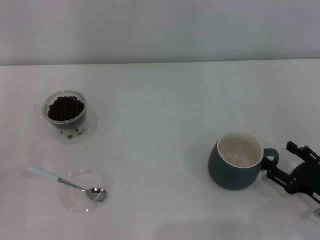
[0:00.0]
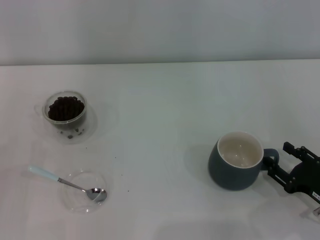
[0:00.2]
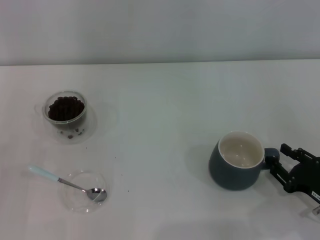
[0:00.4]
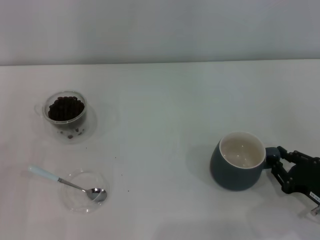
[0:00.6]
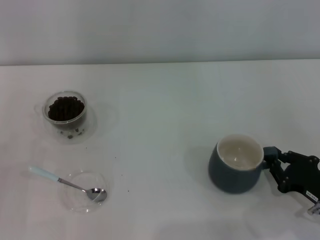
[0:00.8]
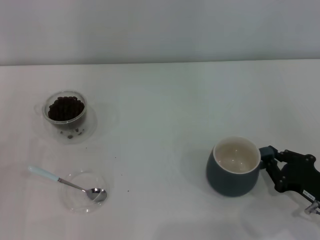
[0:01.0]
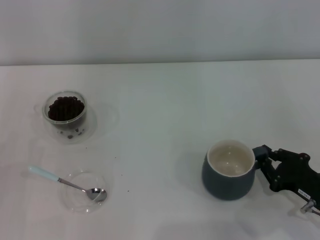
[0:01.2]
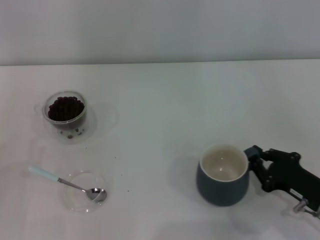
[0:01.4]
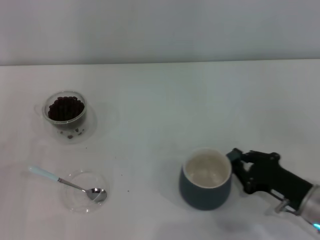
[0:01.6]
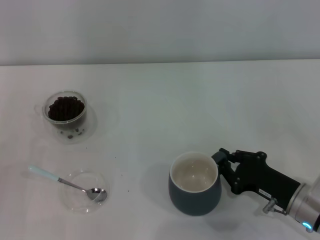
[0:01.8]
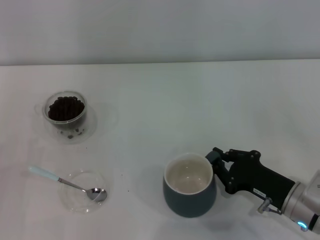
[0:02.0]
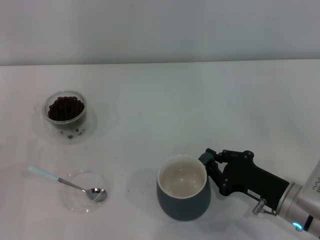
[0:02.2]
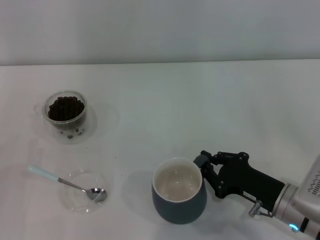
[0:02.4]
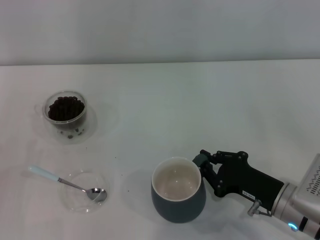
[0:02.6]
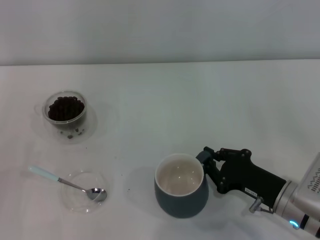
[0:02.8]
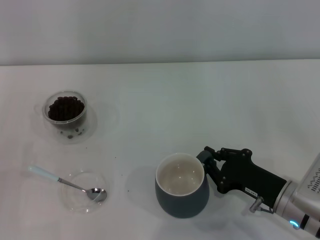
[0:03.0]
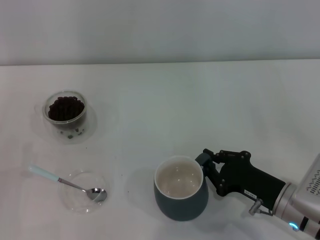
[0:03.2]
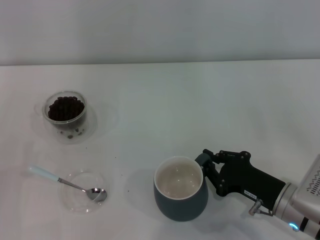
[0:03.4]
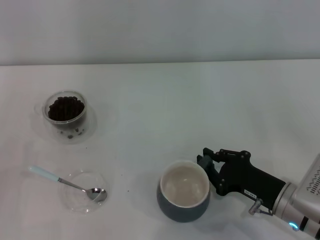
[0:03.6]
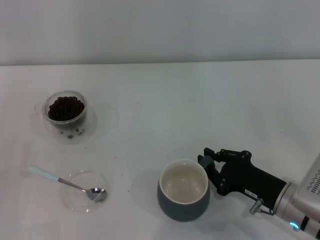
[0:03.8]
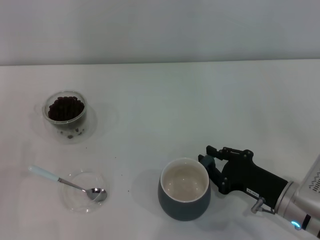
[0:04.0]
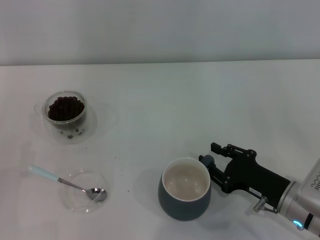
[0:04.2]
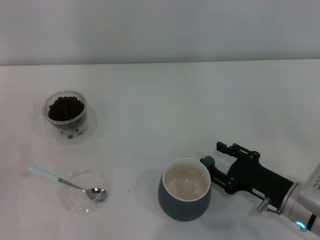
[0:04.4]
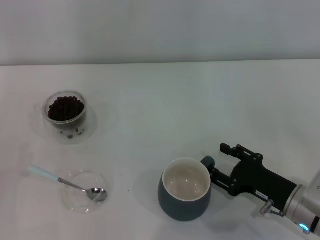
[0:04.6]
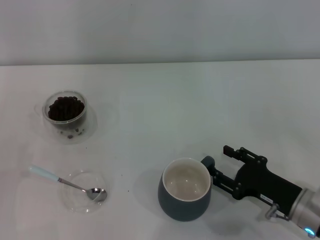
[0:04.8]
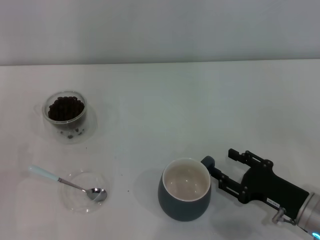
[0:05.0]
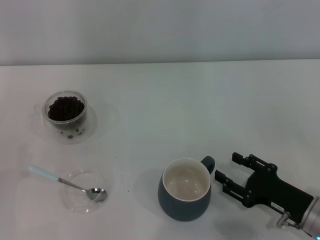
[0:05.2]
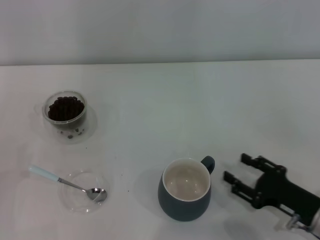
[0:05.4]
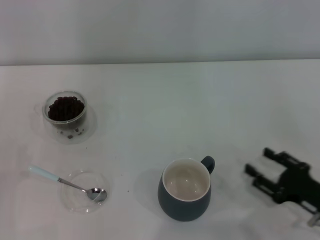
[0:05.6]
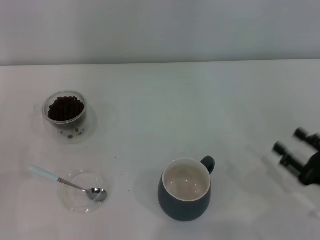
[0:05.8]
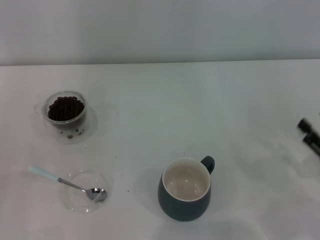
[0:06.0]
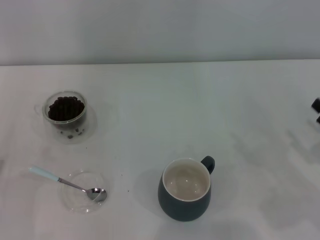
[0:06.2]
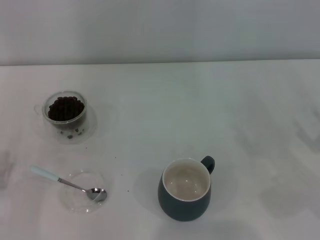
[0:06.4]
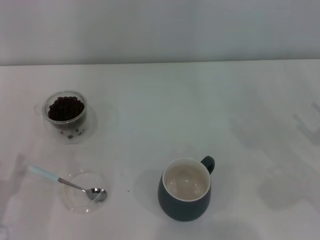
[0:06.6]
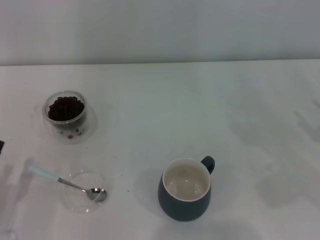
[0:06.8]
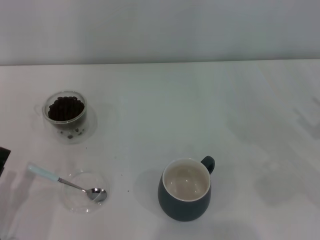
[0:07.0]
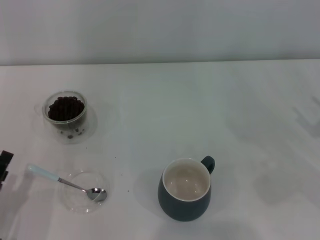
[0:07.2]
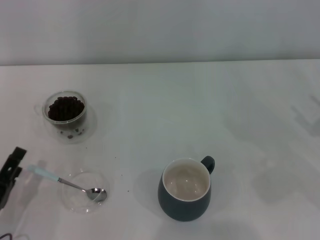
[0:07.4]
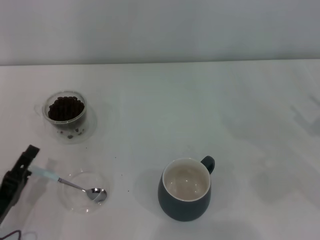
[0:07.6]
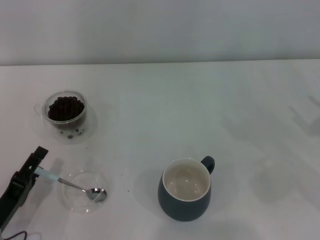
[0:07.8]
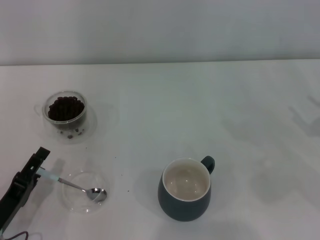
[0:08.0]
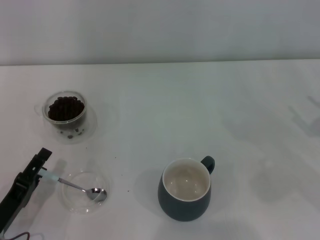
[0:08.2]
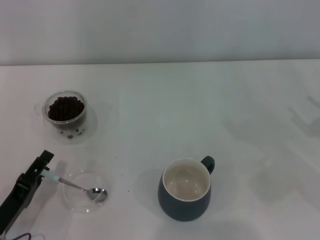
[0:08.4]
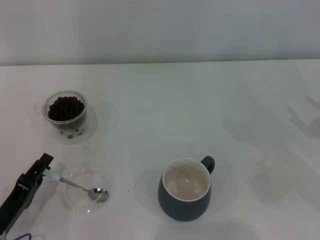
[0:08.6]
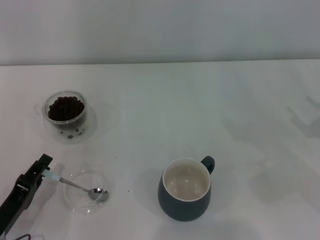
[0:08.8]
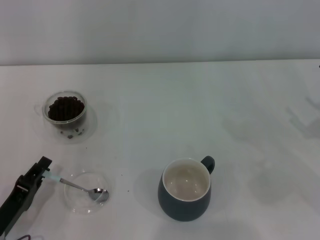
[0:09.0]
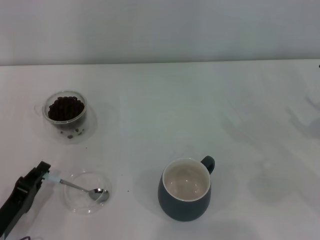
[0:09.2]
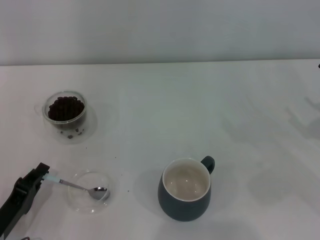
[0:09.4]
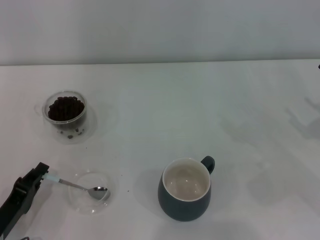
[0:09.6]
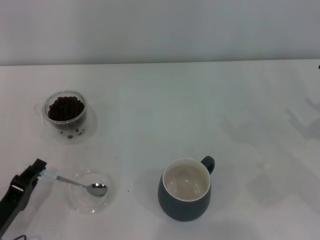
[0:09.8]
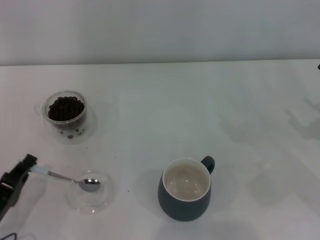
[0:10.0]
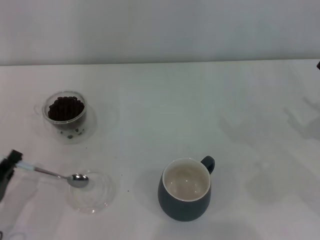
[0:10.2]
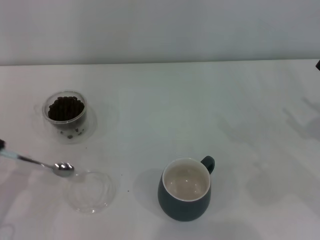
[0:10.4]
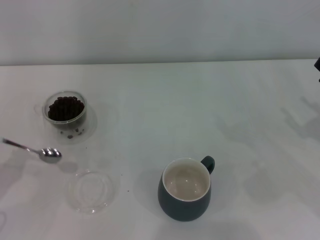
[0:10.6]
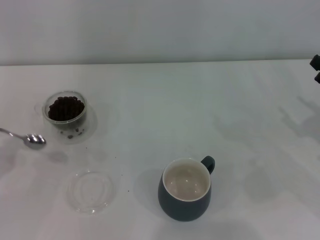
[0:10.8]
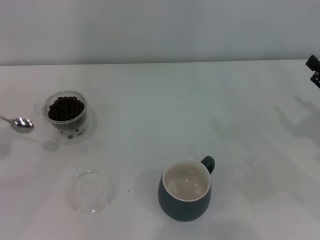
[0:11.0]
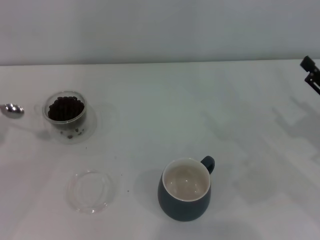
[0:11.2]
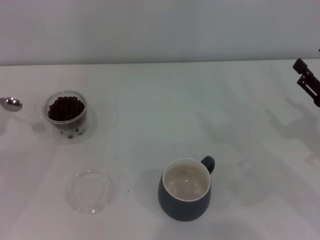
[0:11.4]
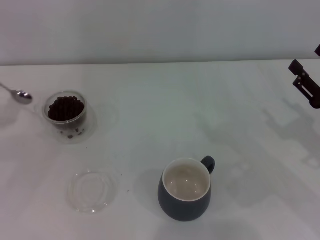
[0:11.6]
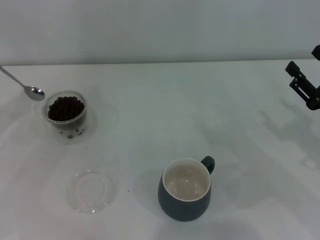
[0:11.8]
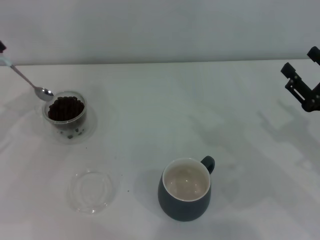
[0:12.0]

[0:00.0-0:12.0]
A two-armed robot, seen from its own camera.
Task of the whole recording: Use a blue spoon to take out the coffee beans from the glass and pour them into the gray cup.
Step, 0:00.0 to 0:05.4: Move the cup to the center of view with the left gripper.
Step, 0:05.6 to 0:10.2: Pick up the spoon with the right gripper.
0:00.0 to 0:01.6: The right gripper shifts by approximately 5 cm, and closes its fingers.
0:01.6 to 0:03.0: There are only small adjustments of the grippers.
0:03.0 to 0:04.4: The right gripper opens.
0:04.4 to 0:06.0: The right gripper travels to the right by some 10 cm.
0:06.0 to 0:07.6: The right gripper is displaced forward and upward by some 10 cm. The left gripper is displaced to the right by about 5 cm.
0:07.6 to 0:09.0: The left gripper closes up.
0:09.0 to 0:10.4: The left gripper shifts approximately 5 cm to the left, and closes up.
0:10.4 to 0:12.0: The right gripper is displaced to the left by about 5 cm; the left gripper moves forward and upward, about 20 cm.

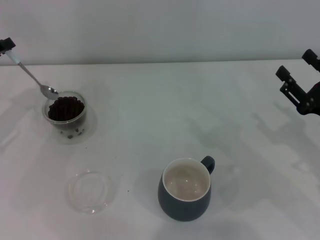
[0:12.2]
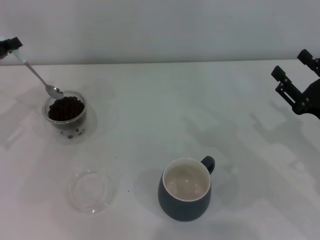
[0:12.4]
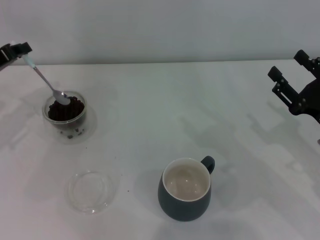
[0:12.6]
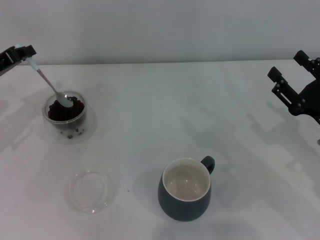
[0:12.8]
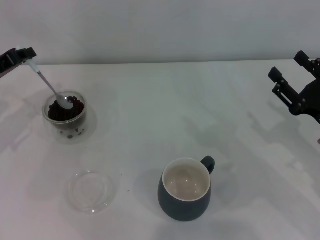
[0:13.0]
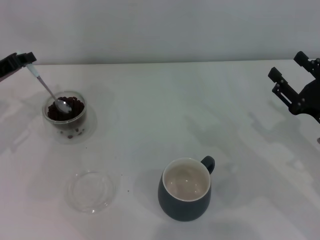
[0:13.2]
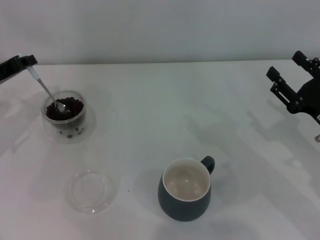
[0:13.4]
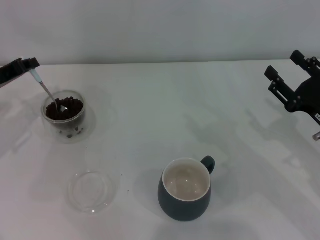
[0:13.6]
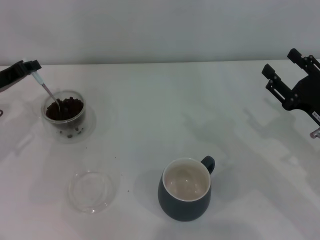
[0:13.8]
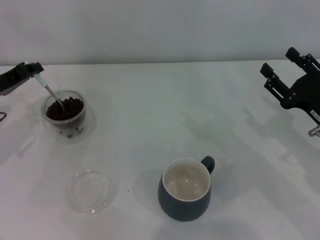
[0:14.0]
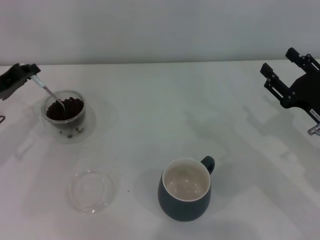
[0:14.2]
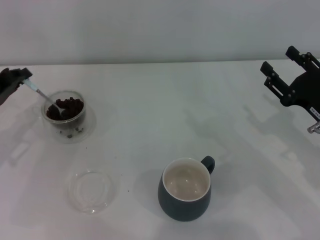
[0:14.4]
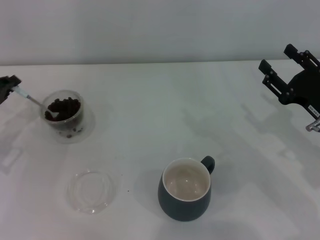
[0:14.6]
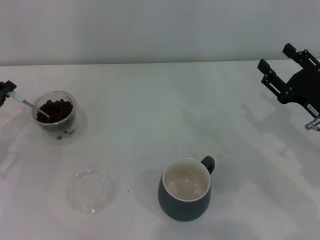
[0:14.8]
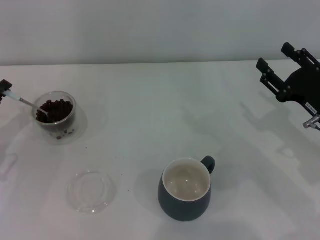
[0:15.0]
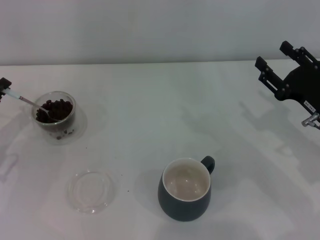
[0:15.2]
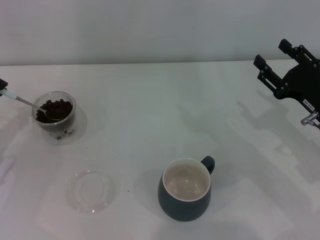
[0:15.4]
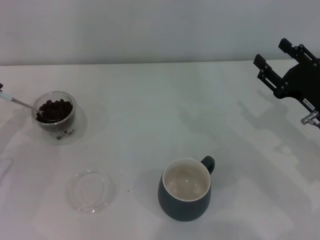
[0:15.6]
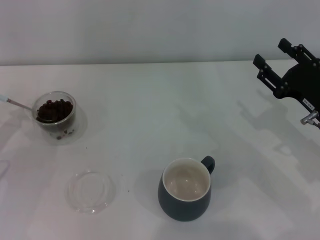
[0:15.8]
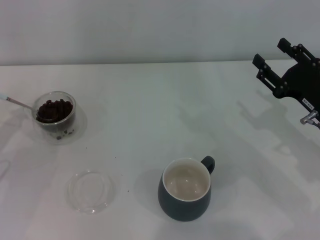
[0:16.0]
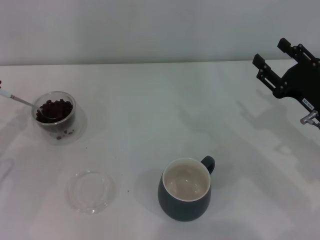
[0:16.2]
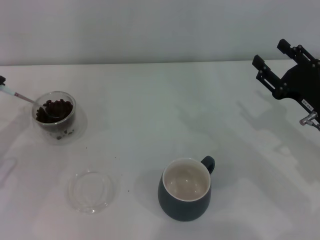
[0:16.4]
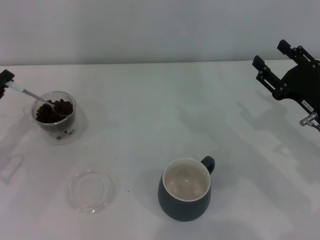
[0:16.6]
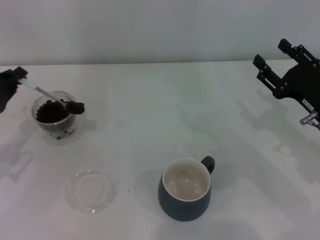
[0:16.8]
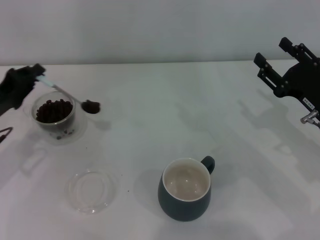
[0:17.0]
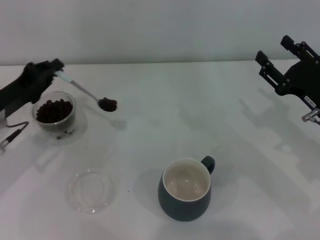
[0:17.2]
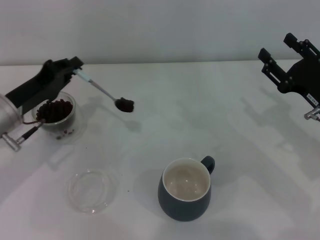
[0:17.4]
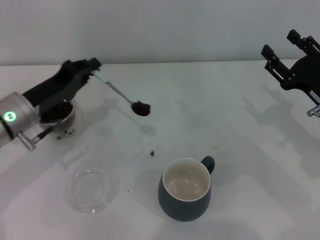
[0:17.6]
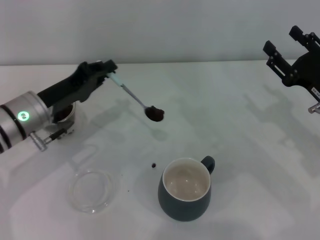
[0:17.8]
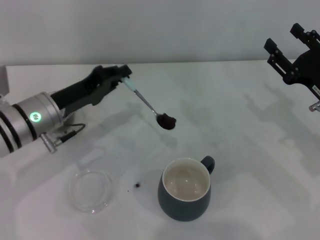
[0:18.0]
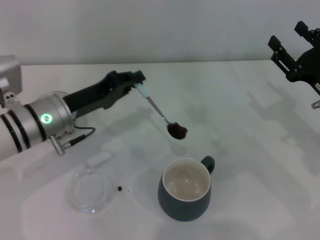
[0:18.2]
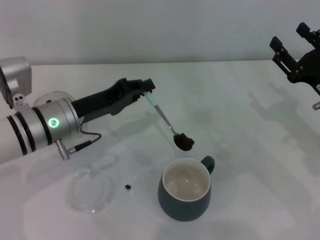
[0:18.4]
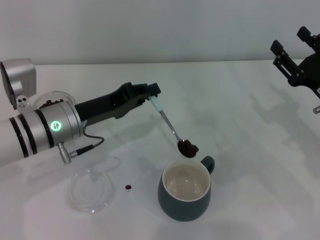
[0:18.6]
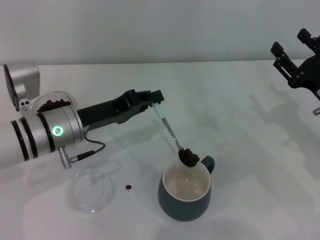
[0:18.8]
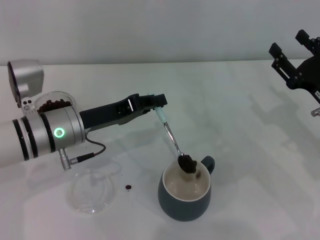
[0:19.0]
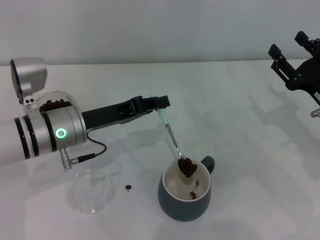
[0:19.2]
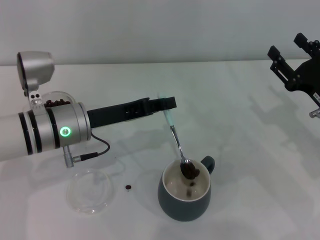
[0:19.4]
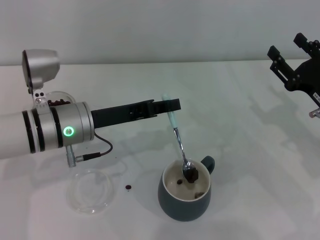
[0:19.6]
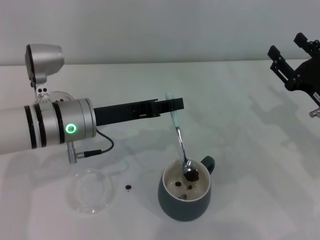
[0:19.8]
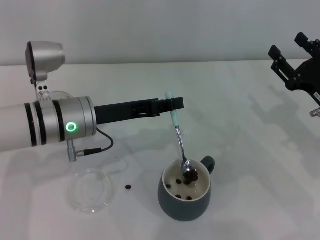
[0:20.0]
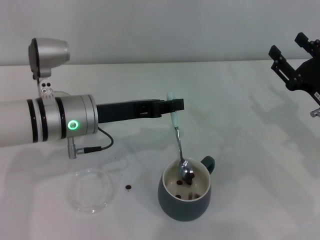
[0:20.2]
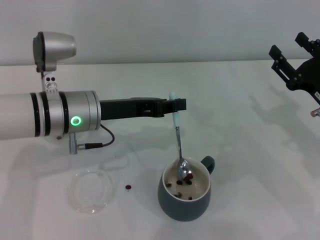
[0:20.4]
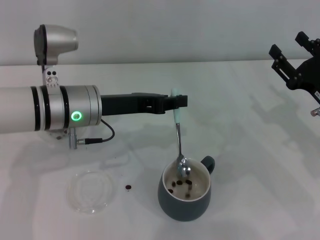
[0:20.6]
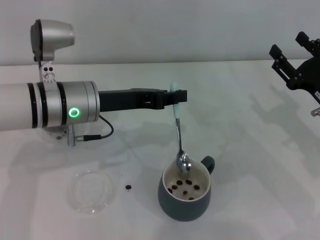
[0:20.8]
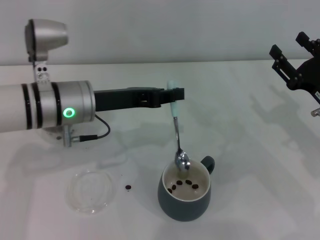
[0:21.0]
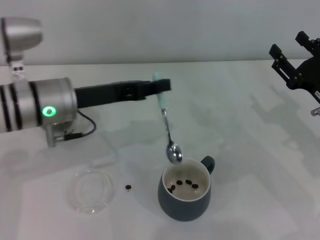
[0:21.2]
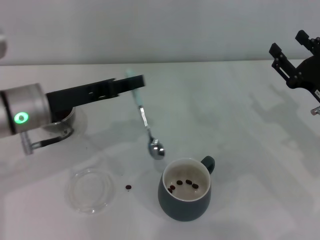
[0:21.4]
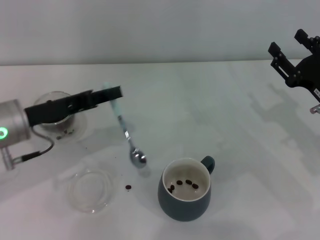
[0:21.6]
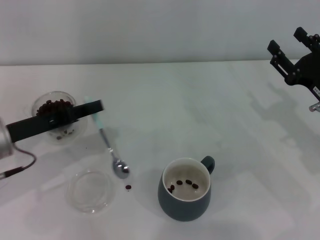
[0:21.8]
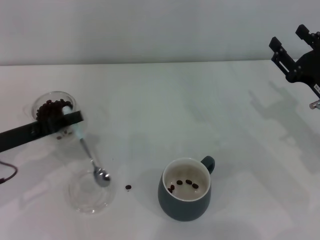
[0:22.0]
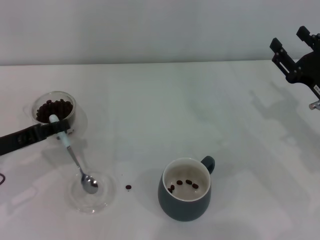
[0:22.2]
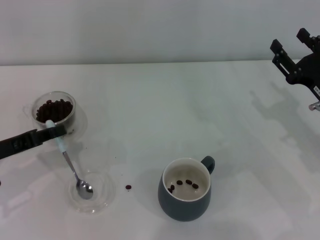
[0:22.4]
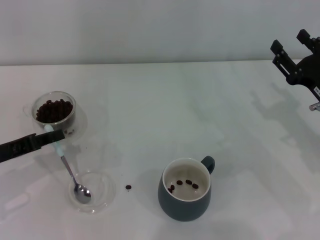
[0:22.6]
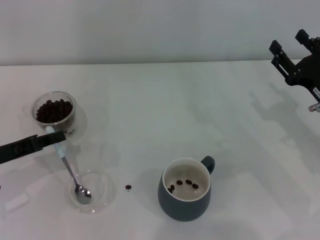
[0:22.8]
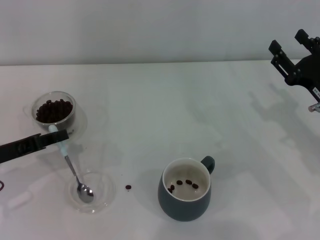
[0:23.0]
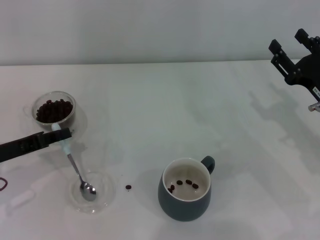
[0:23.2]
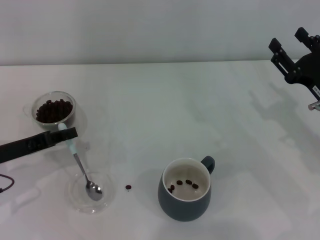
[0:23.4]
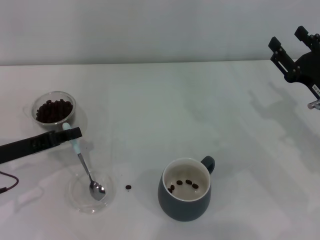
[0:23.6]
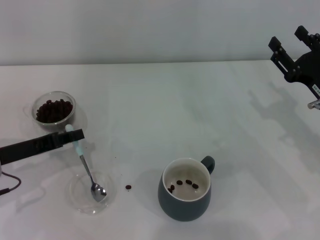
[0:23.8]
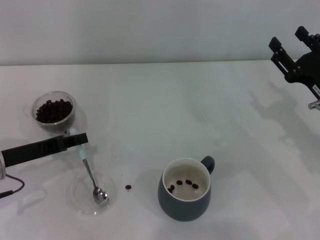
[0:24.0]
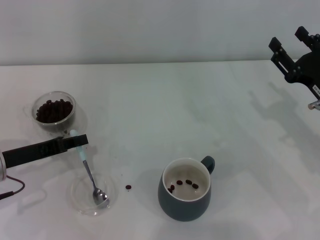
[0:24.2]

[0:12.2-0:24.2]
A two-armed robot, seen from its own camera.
Task of the whole recording: Use a blue spoon to take out the coffee beans from the glass and pour them into the gray cup.
Step, 0:12.2 to 0:20.8: Scoop a spoonful of beans into the cup with the right gripper.
0:12.2 to 0:13.8: The grippers make only small movements.
0:13.8 to 0:15.2: The left gripper heads backward, covering about 5 cm.
0:15.2 to 0:16.6: The grippers move only a little.
0:16.6 to 0:18.2: The left gripper travels to the right by approximately 15 cm.
0:19.8 to 0:21.2: There are only small adjustments of the grippers.
0:21.2 to 0:22.6: The left gripper travels to the left, downward and backward by some 15 cm.
0:22.6 to 0:24.2: There are only small adjustments of the grippers.
